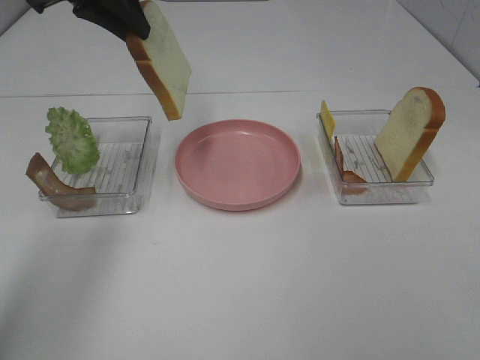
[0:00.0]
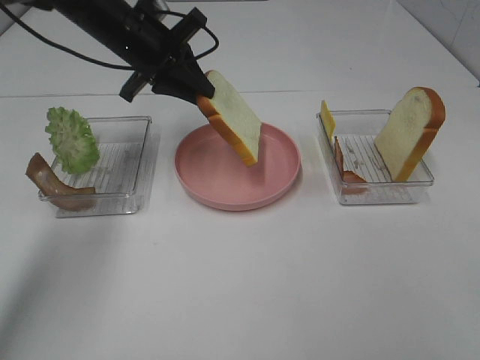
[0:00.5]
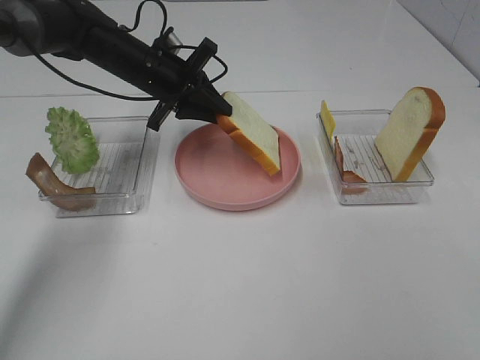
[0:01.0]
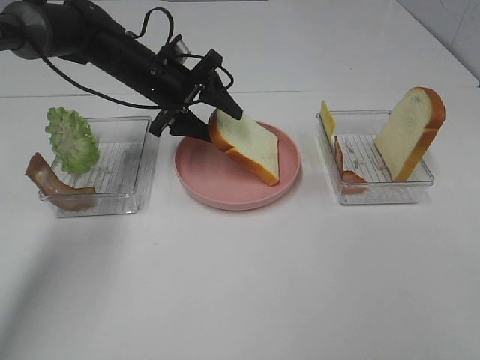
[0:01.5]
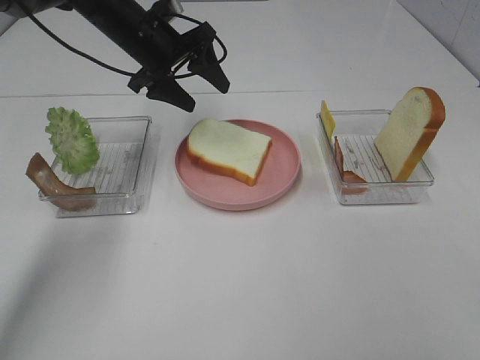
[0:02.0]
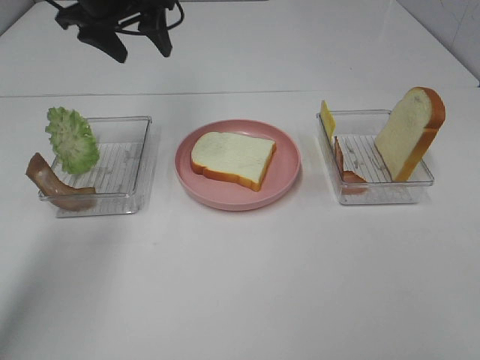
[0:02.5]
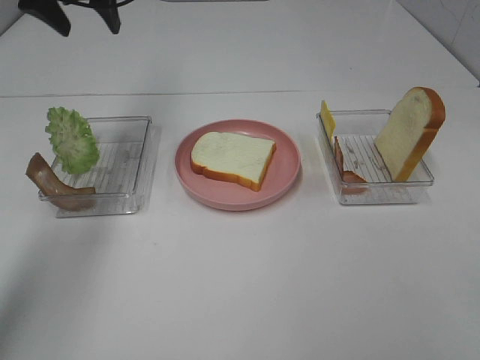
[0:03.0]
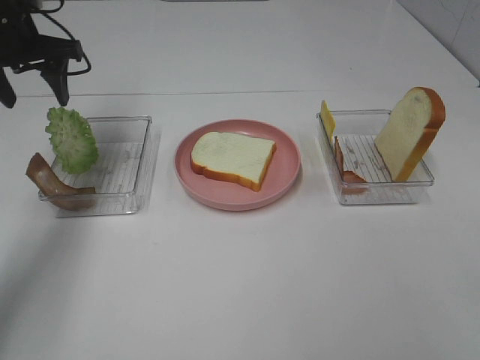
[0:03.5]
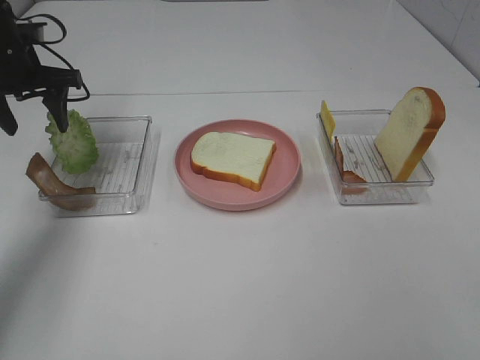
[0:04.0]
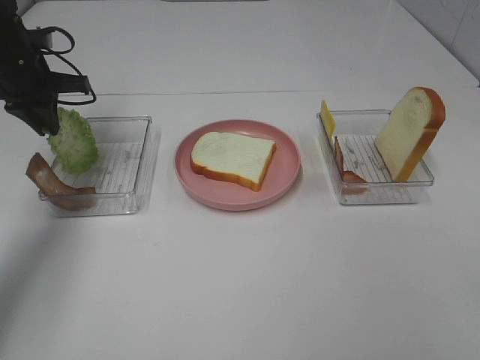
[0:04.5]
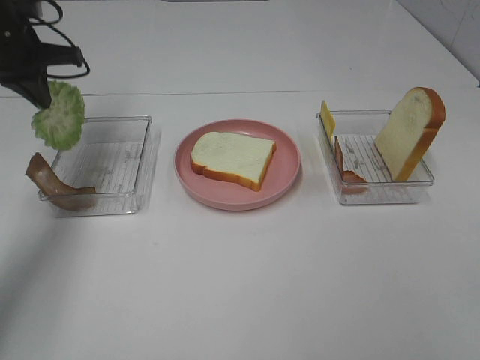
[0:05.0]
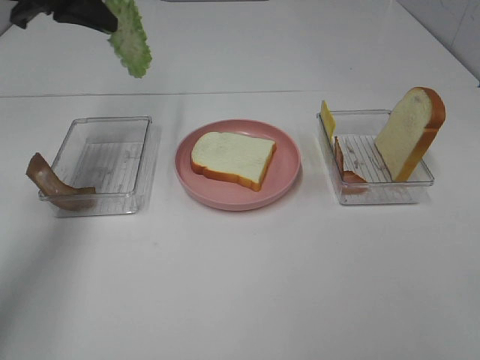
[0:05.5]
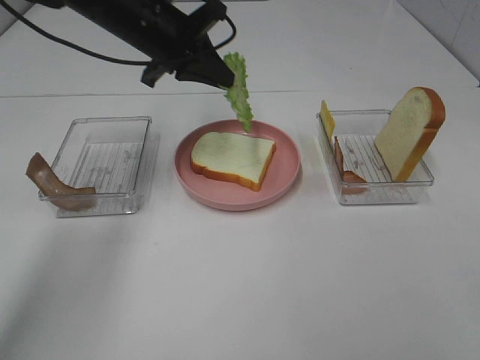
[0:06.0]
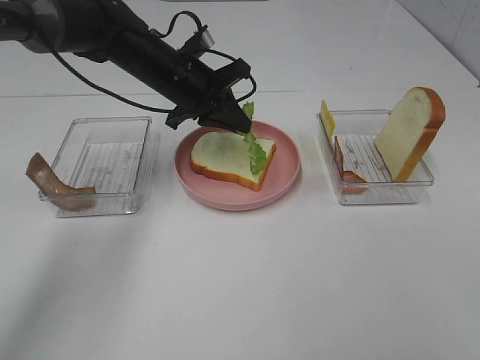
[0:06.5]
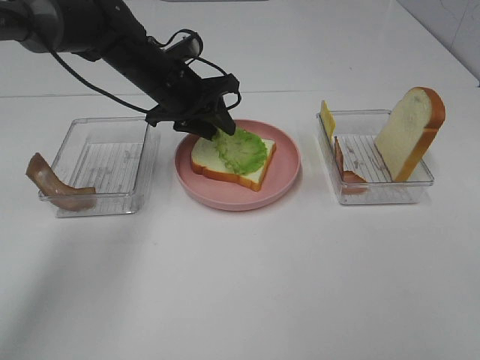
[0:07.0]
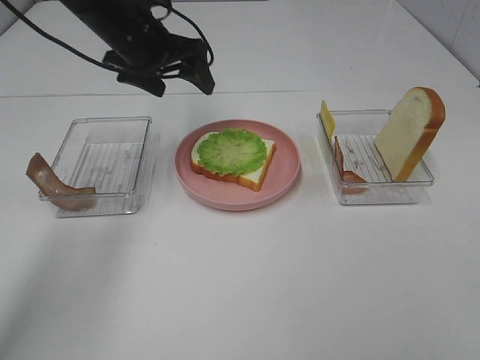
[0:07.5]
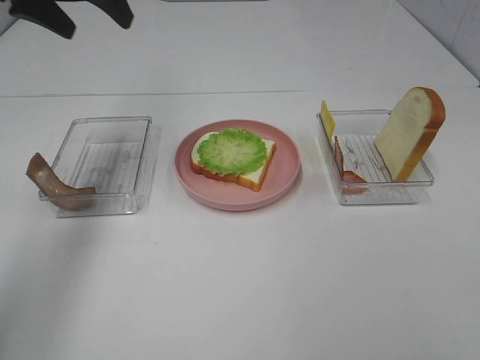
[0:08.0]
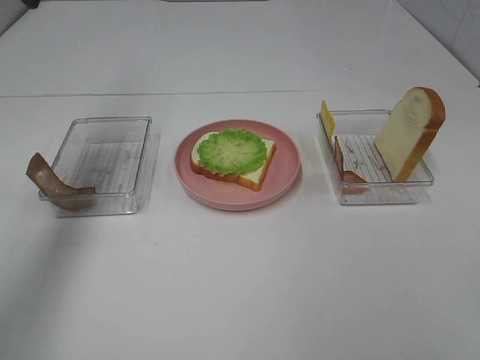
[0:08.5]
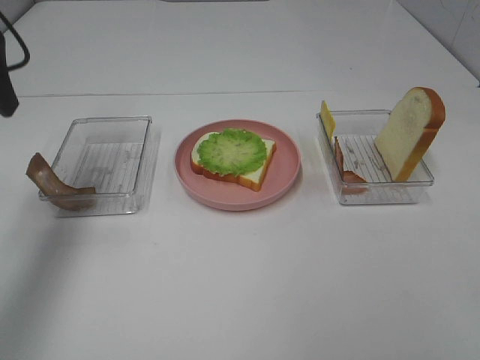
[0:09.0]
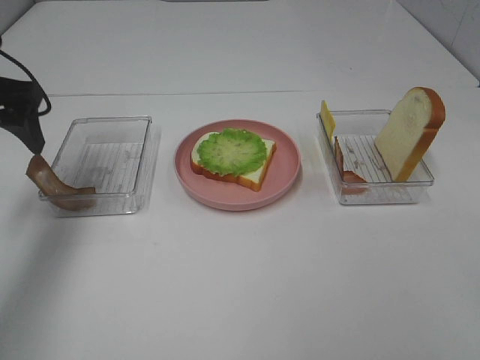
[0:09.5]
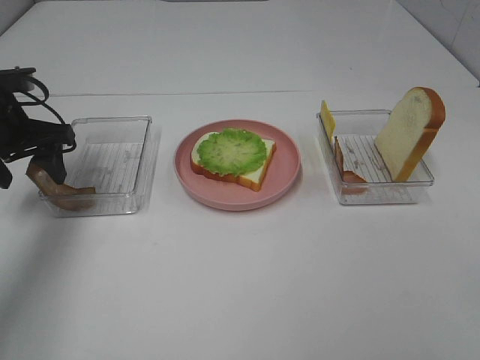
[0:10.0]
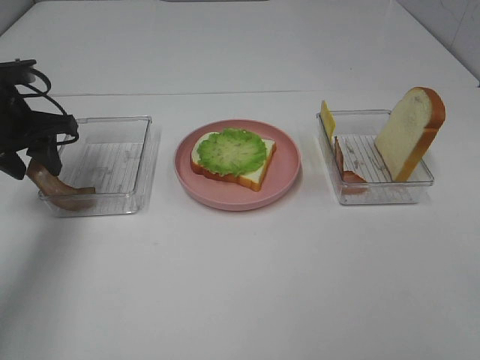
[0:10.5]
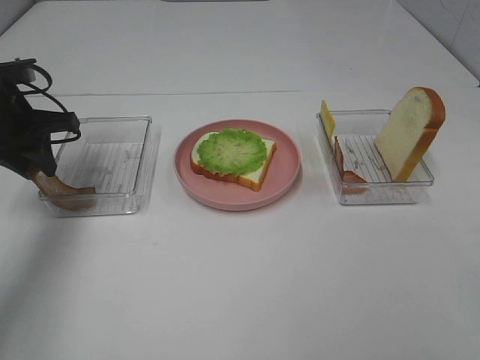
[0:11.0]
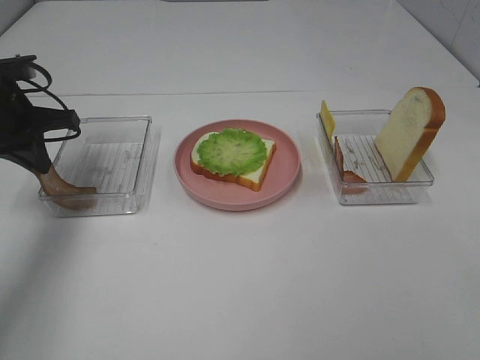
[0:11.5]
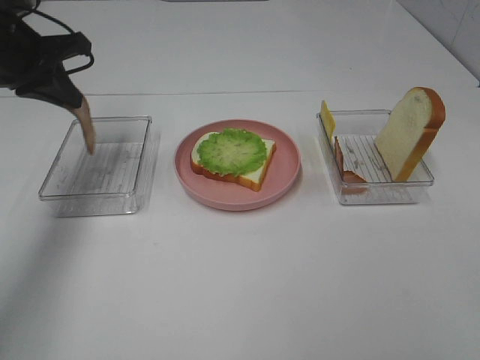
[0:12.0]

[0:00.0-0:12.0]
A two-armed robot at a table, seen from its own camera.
Task of the whole recording: Make sandwiches.
Step, 0:00.0 to 0:02.0: Left hand:place the bread slice on the plate.
Step, 0:02.5 to 0:04.5: Left hand:grab the lettuce slice.
Step, 0:05.0 to 0:07.0: Left hand:place the lettuce slice on the bread slice.
Step, 0:07.5 to 0:11.0: Left hand:grab the bacon.
0:00.0 to 0:02.0: The left gripper is displaced downward and forward by about 15 cm, and opens up.
0:02.0 to 0:04.0: The left gripper is displaced to the left by about 15 cm.
0:04.0 to 0:06.0: The left gripper heads to the right, covering about 20 cm, and closes.
0:06.0 to 0:08.0: The left gripper moves to the left and upward, roughly 15 cm, and opens up.
0:08.0 to 0:10.0: The left gripper shifts roughly 15 cm downward.
0:10.0 to 0:12.0: The left gripper goes approximately 10 cm upward, and closes up.

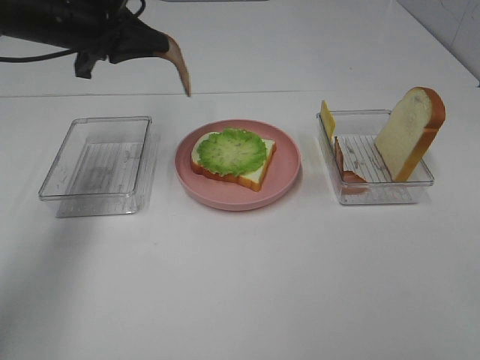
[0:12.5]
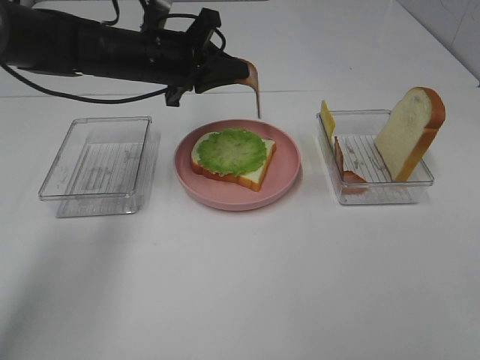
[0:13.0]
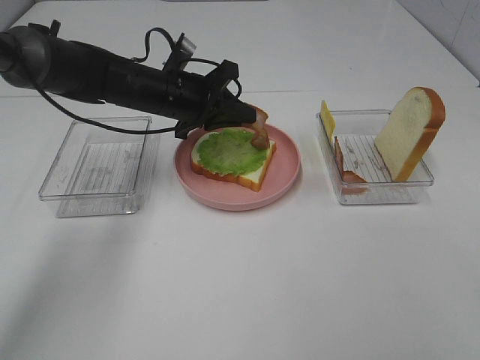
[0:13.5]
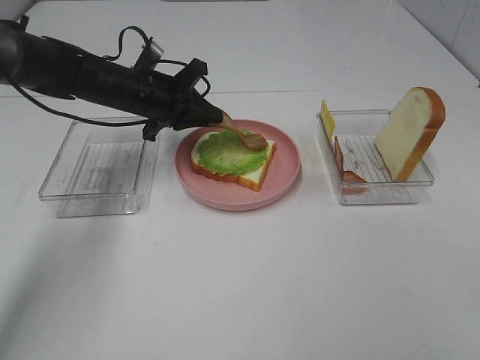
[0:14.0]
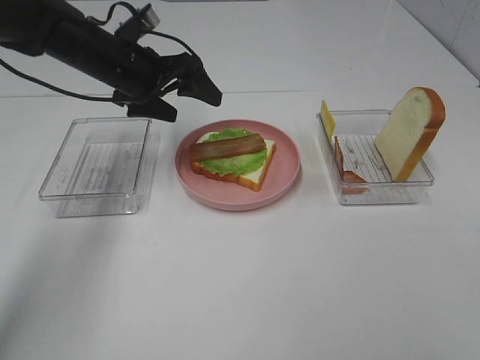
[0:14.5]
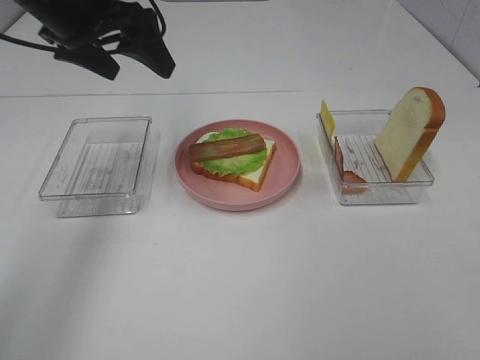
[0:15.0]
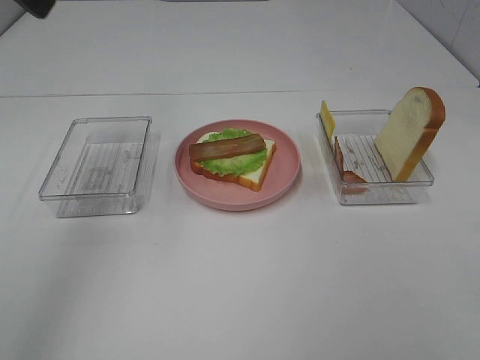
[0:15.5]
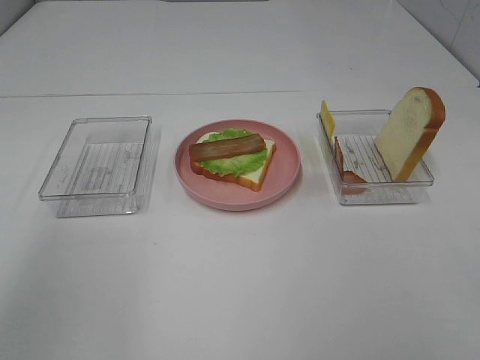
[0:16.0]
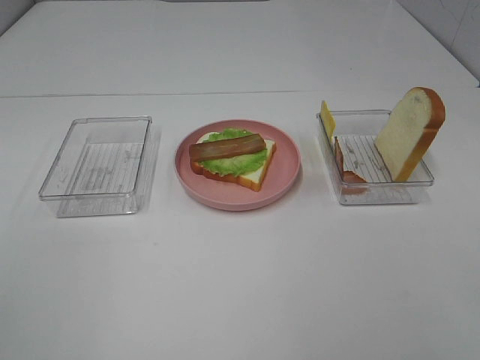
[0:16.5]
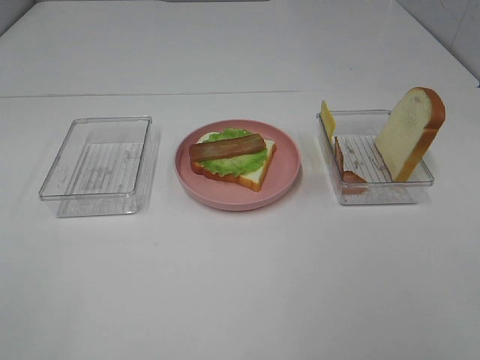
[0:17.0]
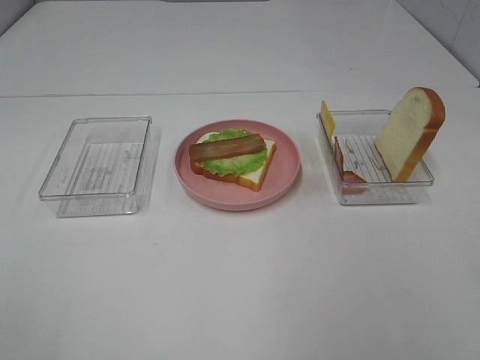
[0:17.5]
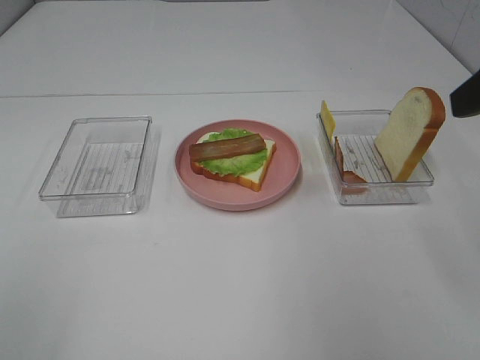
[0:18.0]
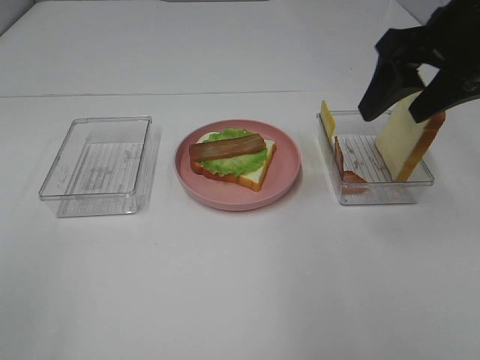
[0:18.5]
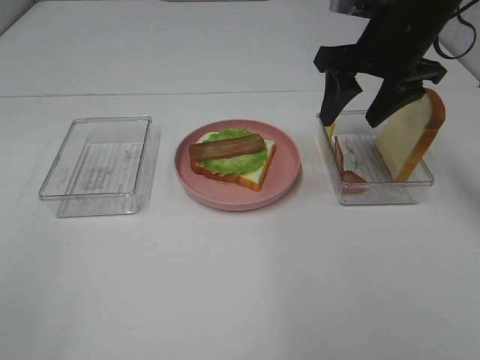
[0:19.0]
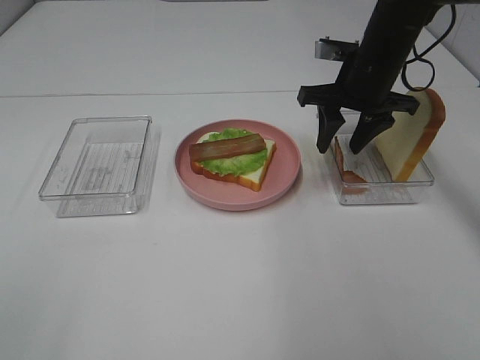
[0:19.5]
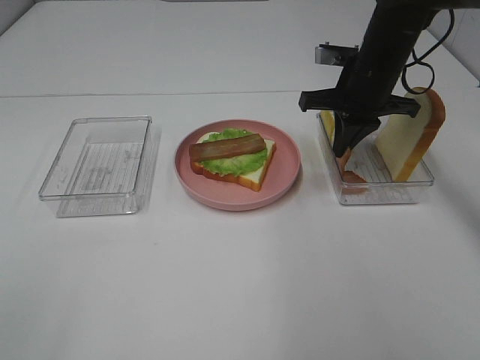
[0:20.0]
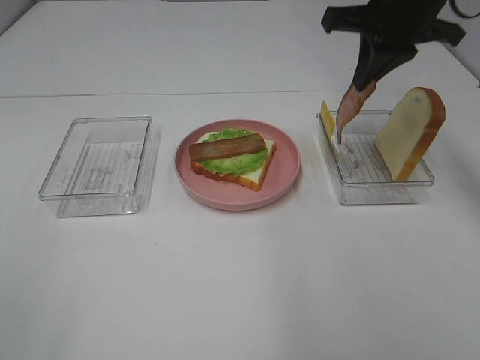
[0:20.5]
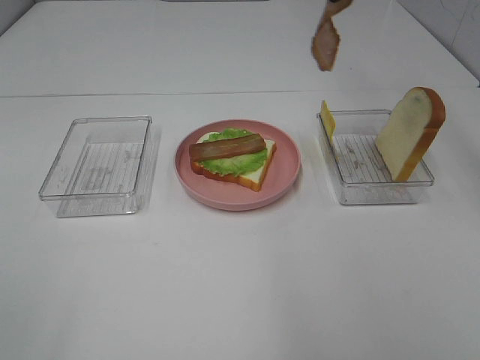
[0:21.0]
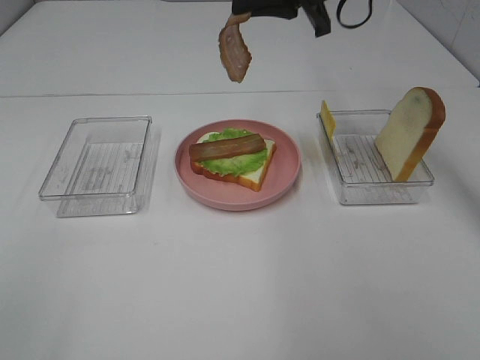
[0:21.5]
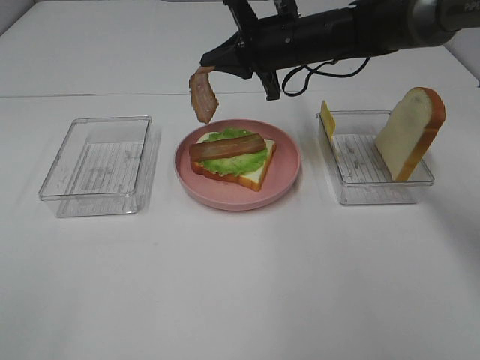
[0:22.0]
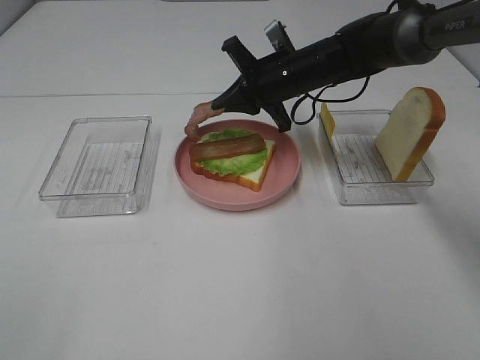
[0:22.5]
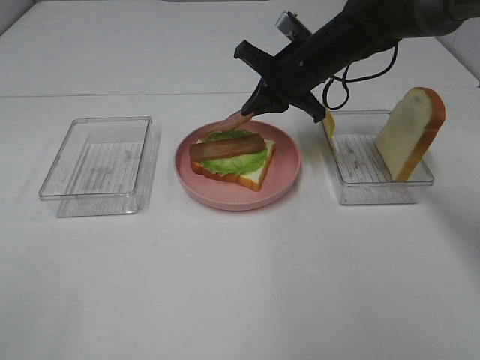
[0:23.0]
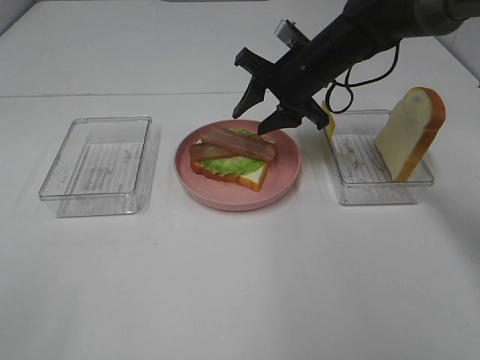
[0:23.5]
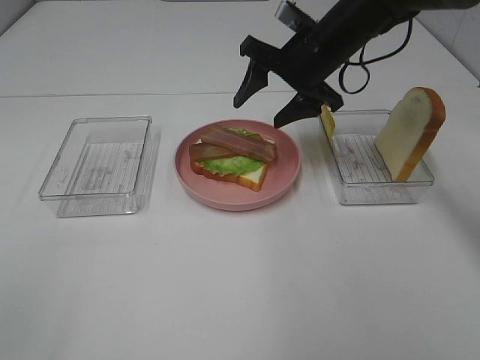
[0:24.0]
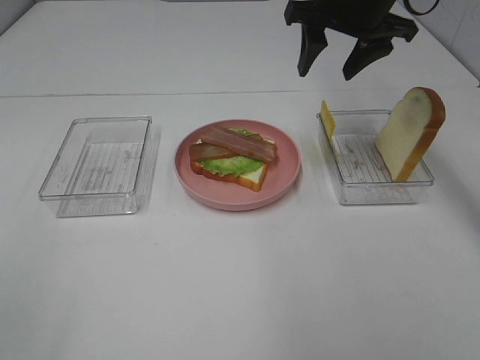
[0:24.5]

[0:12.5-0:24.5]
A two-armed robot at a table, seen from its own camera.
Task of the whole recording: Make sandwiches.
Step, 0:12.5 to 0:14.5: Left hand:place bacon on lettuce slice.
Step, 0:15.0 to 0:20.0: Right hand:grab the bacon.
Step, 0:20.5 to 0:23.5: Right hand:place bacon on bacon.
0:12.5 to 0:14.5: The left gripper heads downward, covering approximately 5 cm, and opens its fingers.
0:14.5 to 0:16.5: The left gripper is displaced backward and upward by approximately 50 cm.
0:16.5 to 0:18.5: The right gripper moves forward, about 30 cm.
0:18.5 to 0:20.5: The right gripper is displaced forward by about 5 cm, reaches approximately 10 cm downward, then returns, and closes its fingers.
0:20.5 to 0:22.5: The right gripper heads downward, to the left and forward, covering some 20 cm.
0:22.5 to 0:24.5: The right gripper is displaced upward and to the right by roughly 15 cm, and opens up.

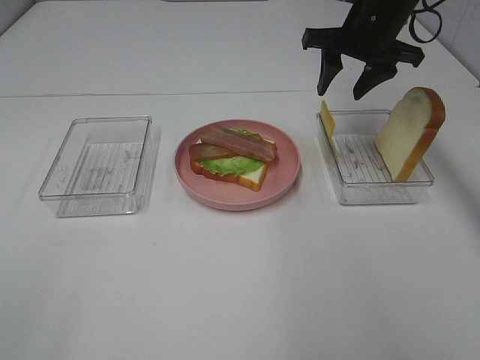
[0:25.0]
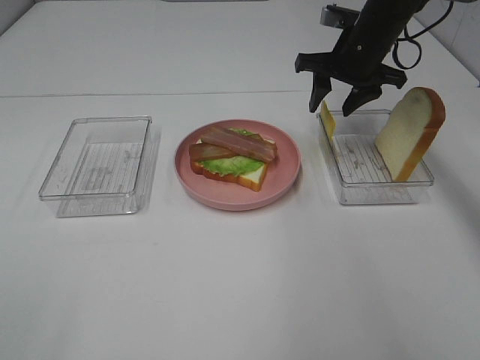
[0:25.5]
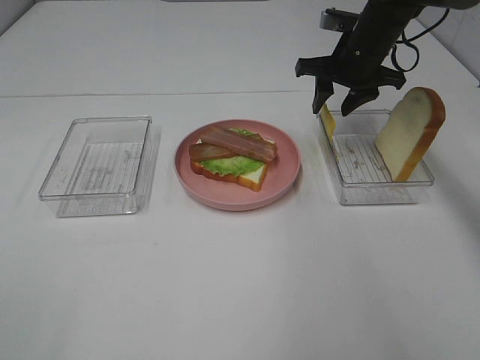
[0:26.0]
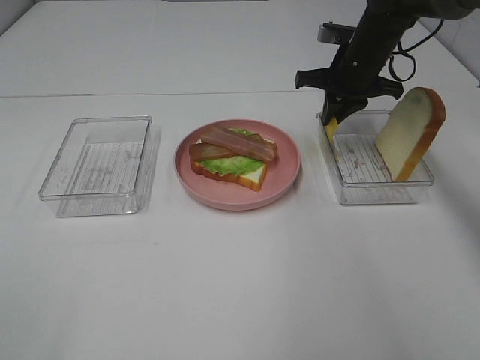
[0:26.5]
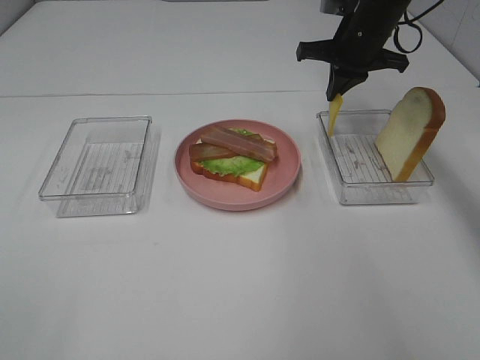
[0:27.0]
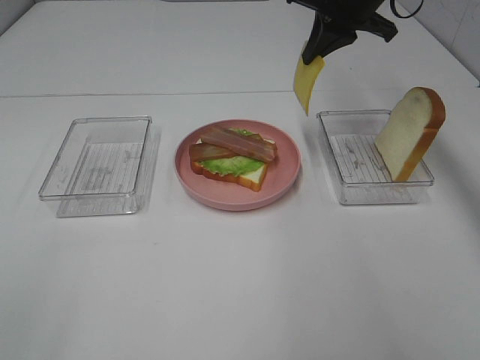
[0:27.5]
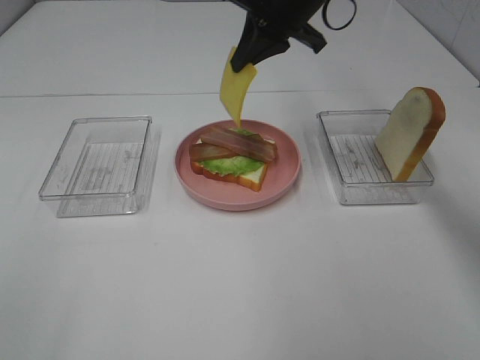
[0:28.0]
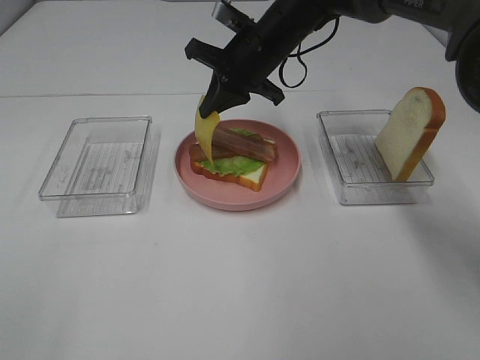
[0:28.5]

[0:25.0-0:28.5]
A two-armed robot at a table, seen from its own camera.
Task of the whole recording: Make sandwiches.
0:25.0 to 0:27.0: The right gripper closes.
0:27.0 to 0:28.5: The right gripper shifts roughly 15 cm to the left.
